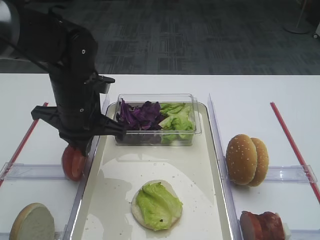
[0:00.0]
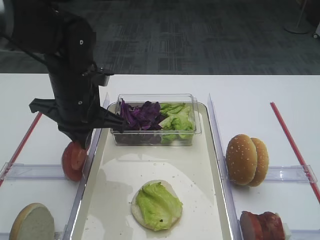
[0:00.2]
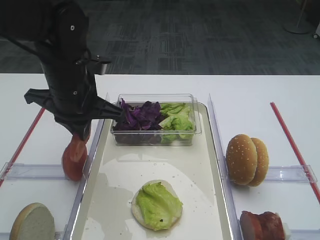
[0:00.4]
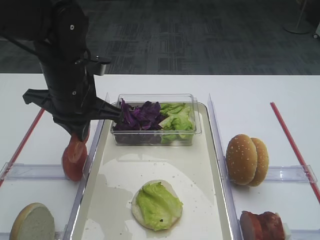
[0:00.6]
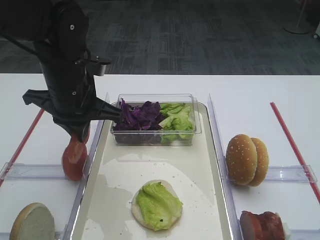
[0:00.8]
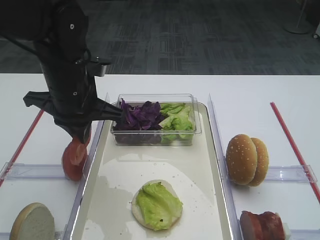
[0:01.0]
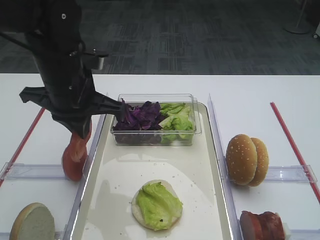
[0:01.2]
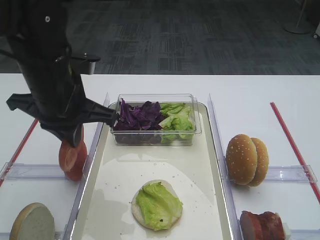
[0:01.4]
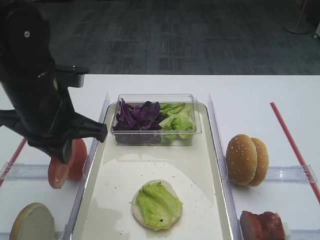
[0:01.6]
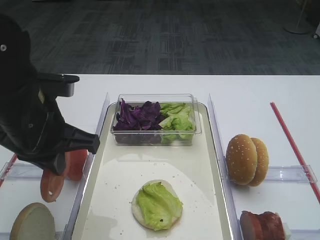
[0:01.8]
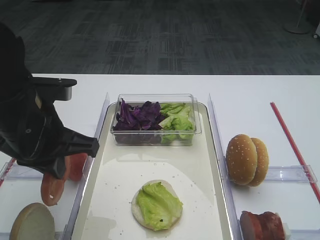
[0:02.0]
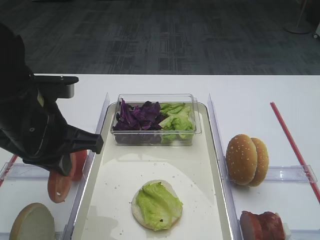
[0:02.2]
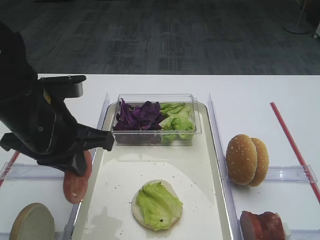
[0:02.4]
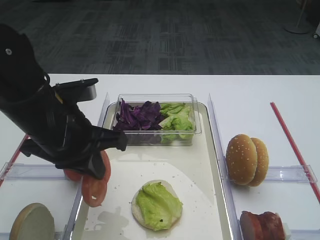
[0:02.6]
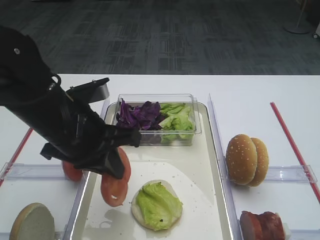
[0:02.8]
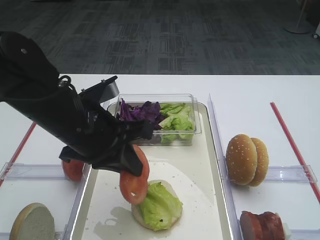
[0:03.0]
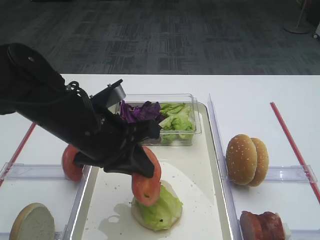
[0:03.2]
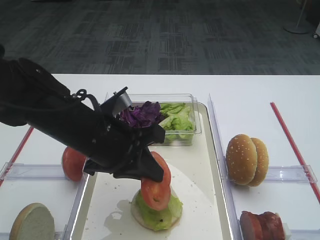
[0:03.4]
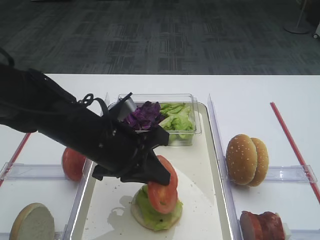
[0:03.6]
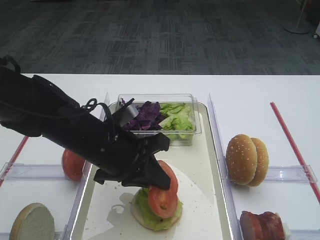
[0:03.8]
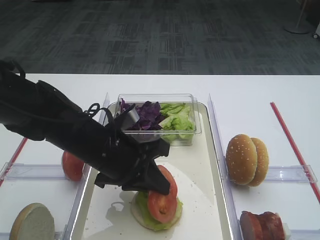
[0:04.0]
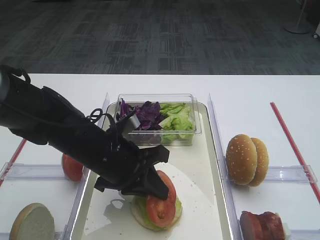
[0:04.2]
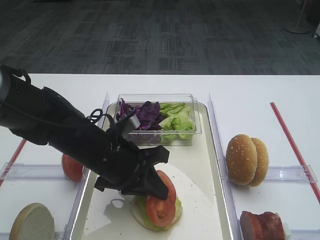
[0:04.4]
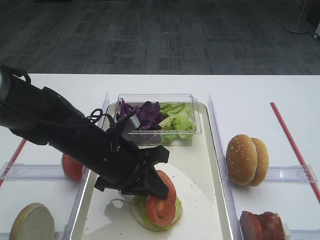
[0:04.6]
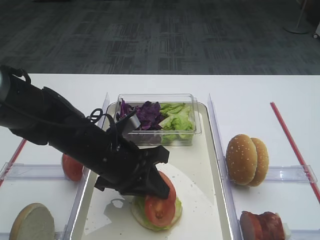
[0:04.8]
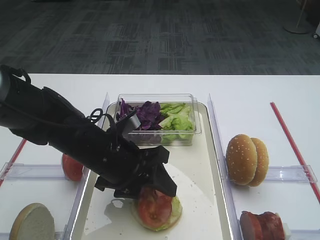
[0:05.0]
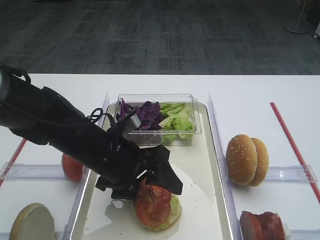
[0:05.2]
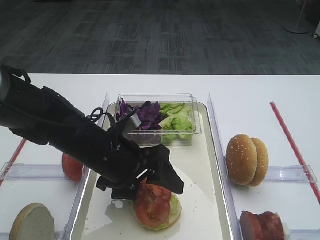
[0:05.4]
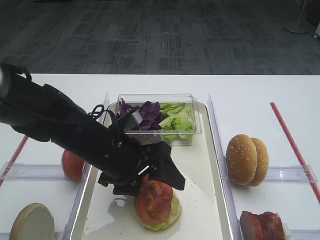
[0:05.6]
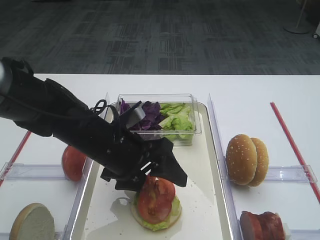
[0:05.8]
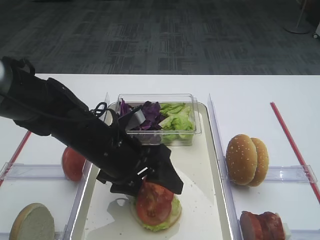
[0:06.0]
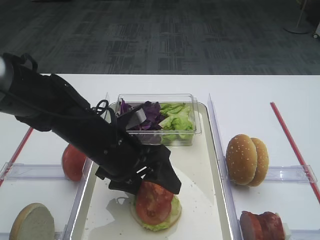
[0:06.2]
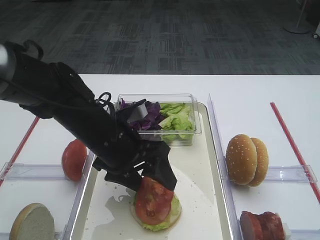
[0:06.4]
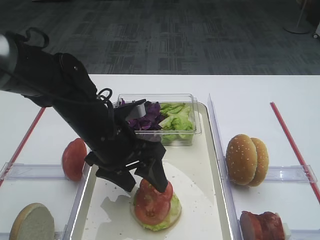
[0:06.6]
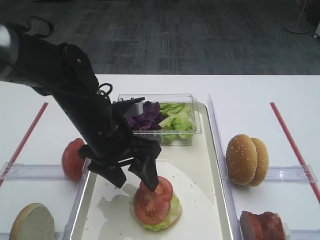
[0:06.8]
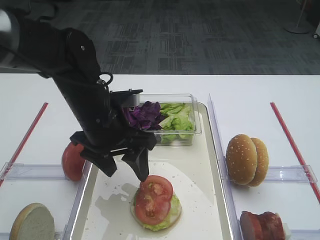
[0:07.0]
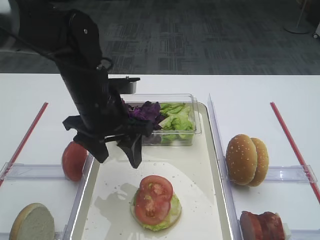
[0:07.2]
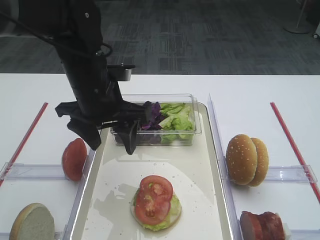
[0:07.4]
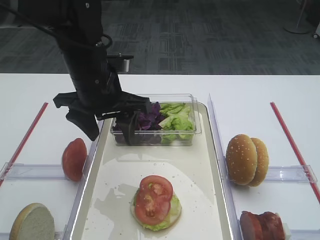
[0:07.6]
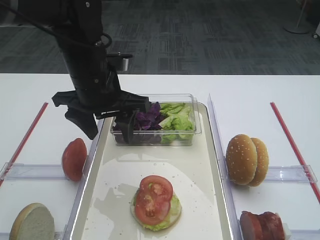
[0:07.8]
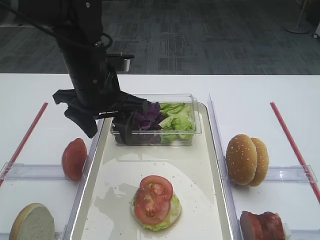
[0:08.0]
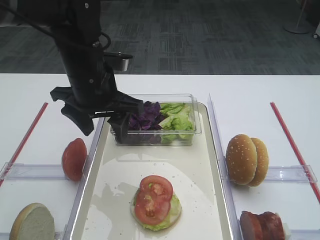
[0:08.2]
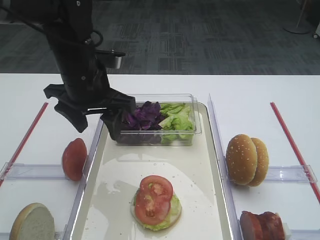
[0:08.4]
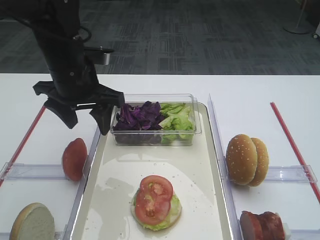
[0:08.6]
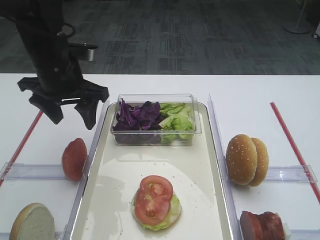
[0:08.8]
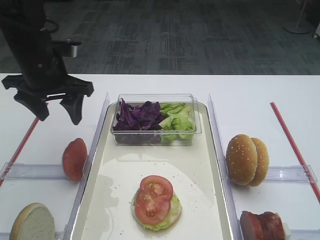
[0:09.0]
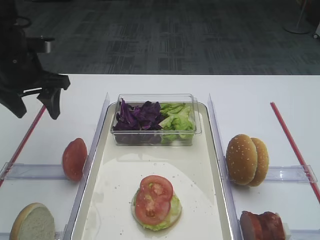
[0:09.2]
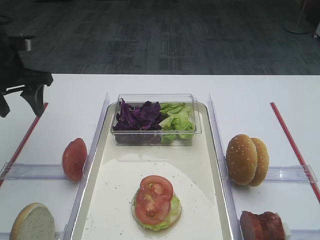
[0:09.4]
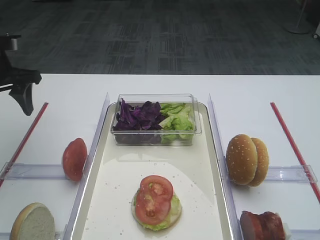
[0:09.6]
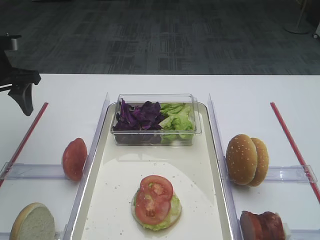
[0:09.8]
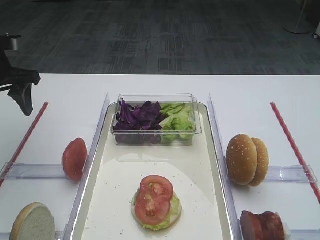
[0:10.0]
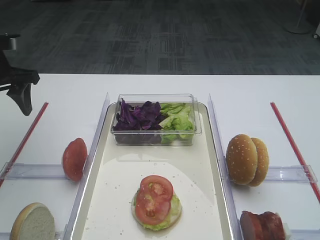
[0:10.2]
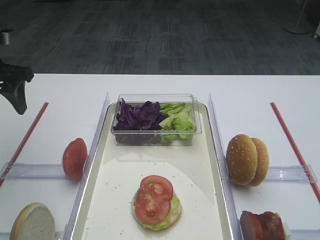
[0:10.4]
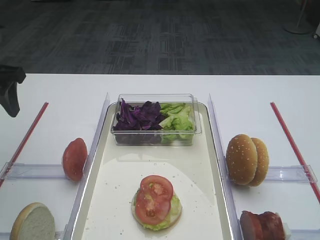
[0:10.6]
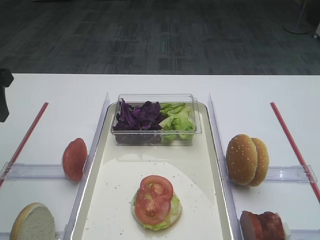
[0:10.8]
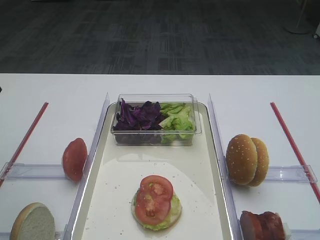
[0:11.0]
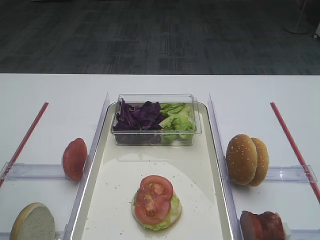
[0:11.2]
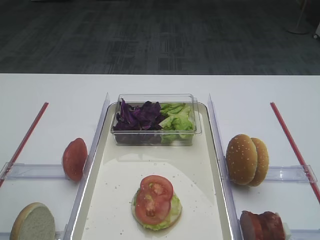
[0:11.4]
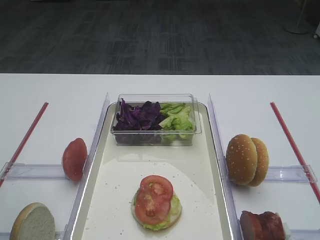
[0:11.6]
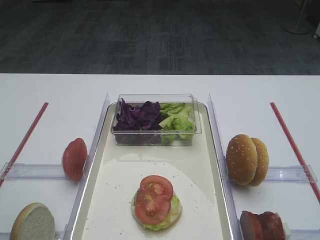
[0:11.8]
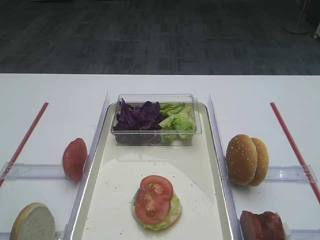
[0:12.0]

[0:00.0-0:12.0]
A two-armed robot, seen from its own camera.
Step, 0:01.4 to 0:07.2: Place the tomato slice on the lettuce leaf with the left gripper.
0:00.0 to 0:01.6: The left gripper moves backward, about 5 cm.
0:01.6 to 0:03.0: The left gripper ends up approximately 5 cm from where it was.
0:03.0 to 0:04.4: The left gripper moves downward, about 5 cm.
0:04.4 to 0:06.0: The left gripper opens its fingers.
0:06.0 to 0:07.6: The left gripper travels upward and forward by approximately 10 cm.
0:07.6 to 0:09.0: The left gripper goes about 10 cm to the left.
0:09.0 to 0:10.4: The left gripper shifts approximately 10 cm to the left.
0:10.4 to 0:12.0: The left gripper moves backward, about 20 cm.

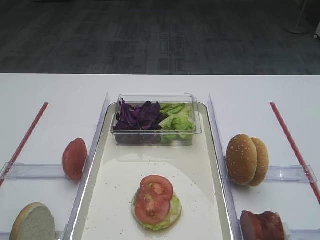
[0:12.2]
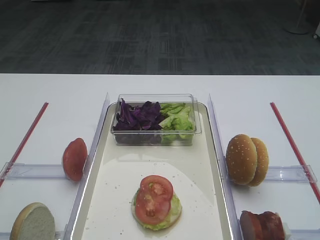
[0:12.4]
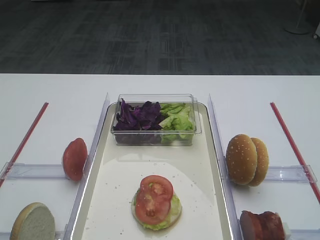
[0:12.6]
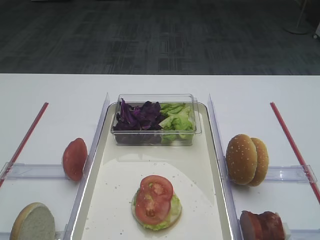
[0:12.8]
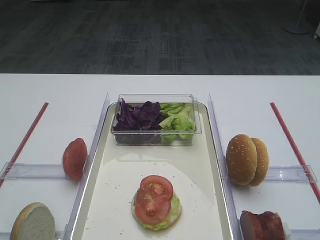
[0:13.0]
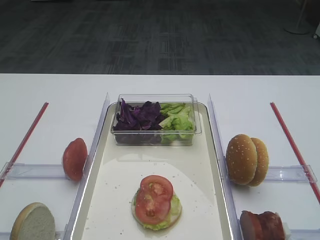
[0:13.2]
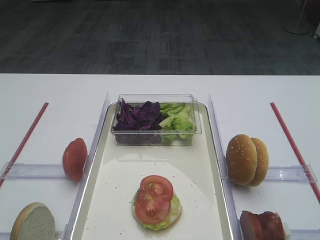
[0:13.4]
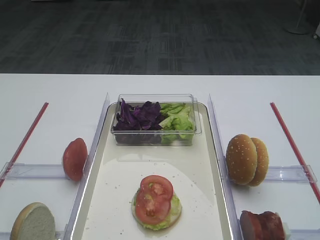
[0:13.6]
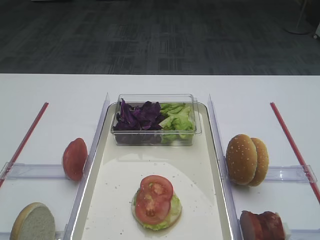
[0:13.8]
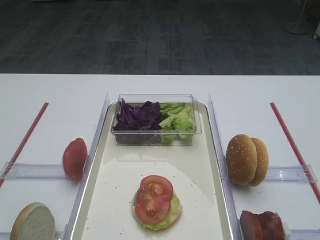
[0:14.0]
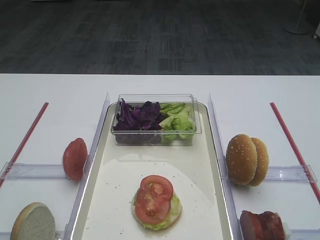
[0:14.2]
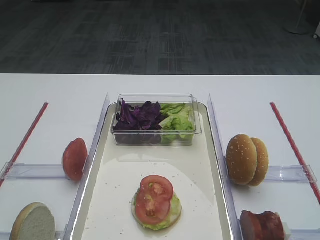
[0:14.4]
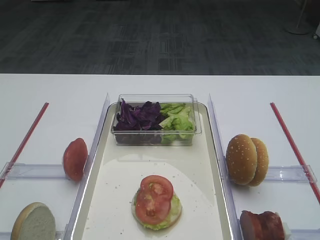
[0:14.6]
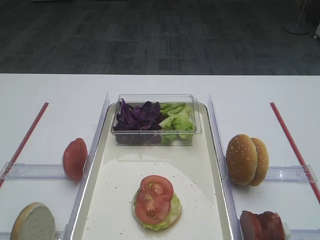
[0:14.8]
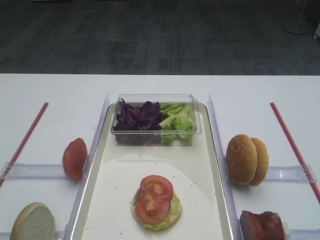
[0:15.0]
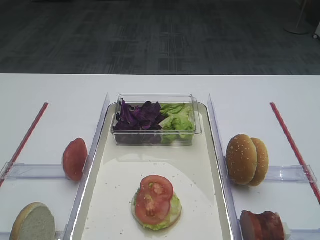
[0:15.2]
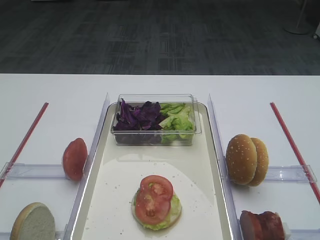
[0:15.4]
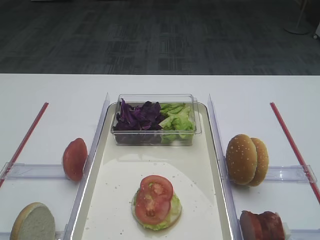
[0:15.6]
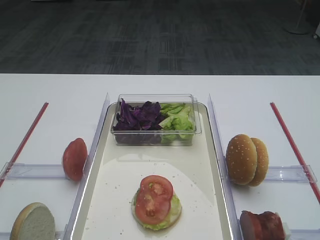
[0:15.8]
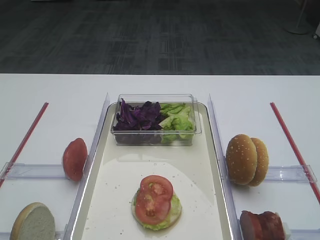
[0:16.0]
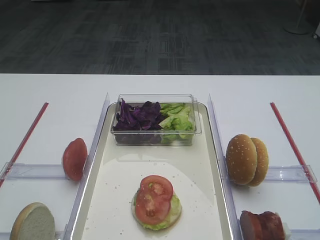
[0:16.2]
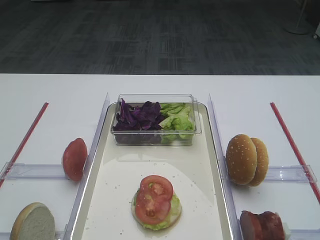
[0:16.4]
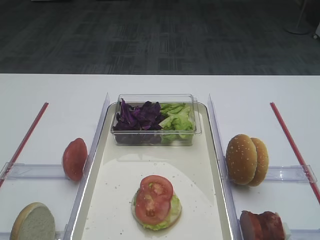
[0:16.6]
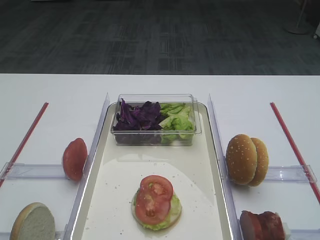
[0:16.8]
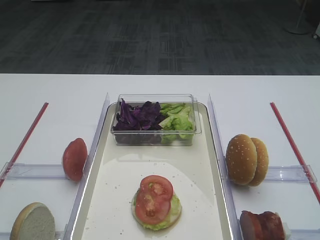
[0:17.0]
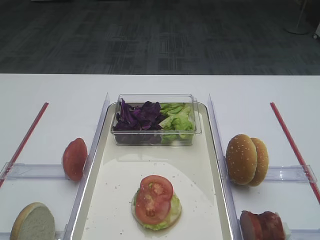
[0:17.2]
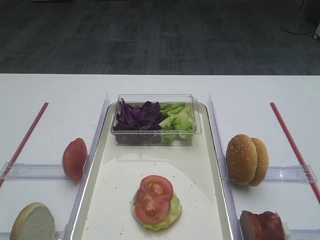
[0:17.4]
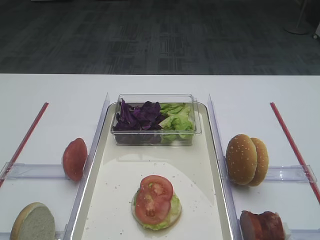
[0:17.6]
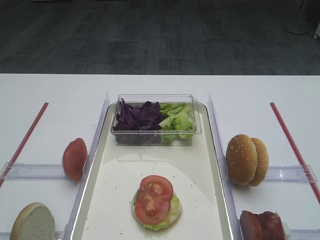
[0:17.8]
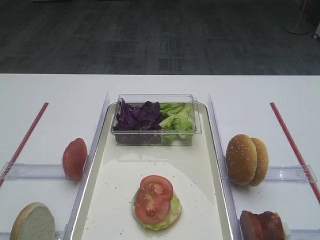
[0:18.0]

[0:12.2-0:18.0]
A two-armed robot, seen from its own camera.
0:15.0 to 0:18.0: Neither gripper changes place.

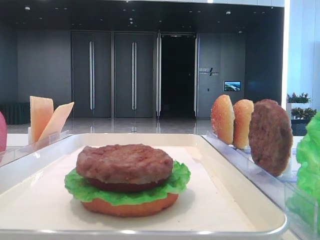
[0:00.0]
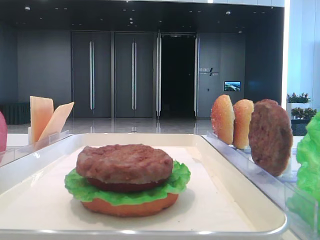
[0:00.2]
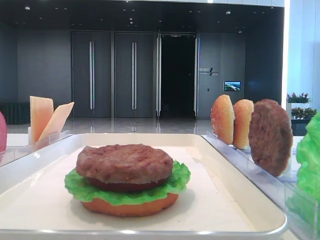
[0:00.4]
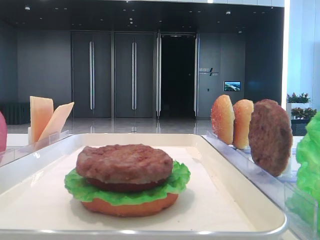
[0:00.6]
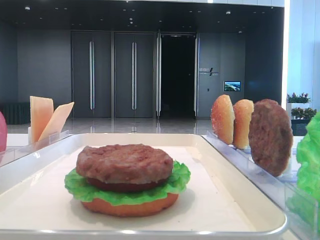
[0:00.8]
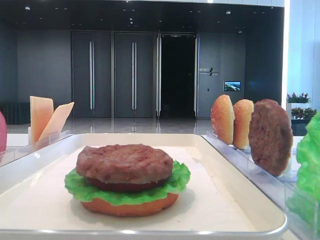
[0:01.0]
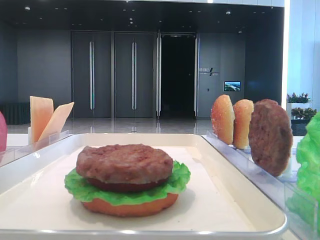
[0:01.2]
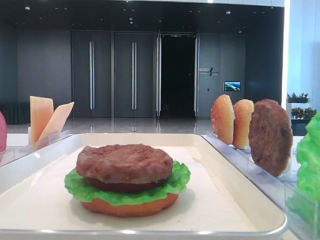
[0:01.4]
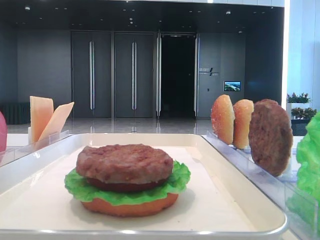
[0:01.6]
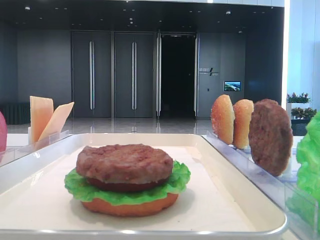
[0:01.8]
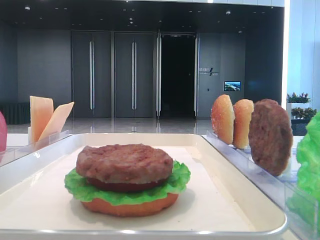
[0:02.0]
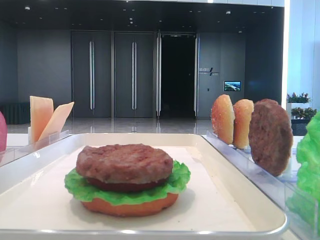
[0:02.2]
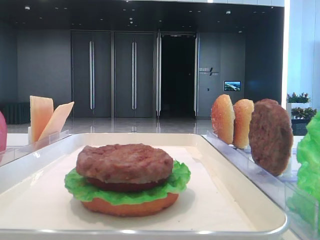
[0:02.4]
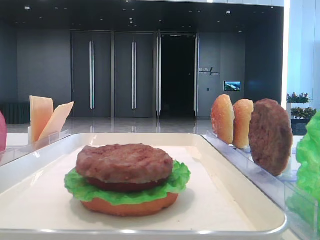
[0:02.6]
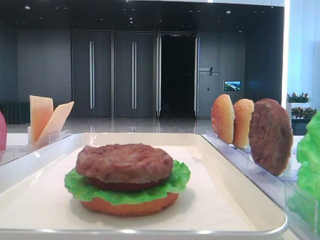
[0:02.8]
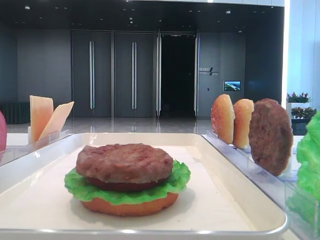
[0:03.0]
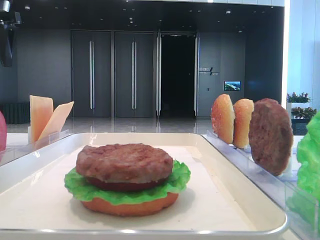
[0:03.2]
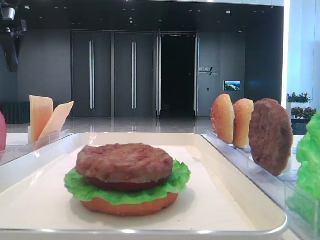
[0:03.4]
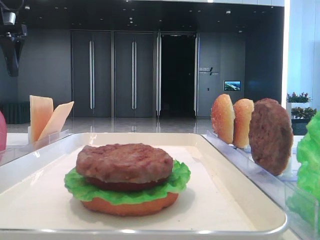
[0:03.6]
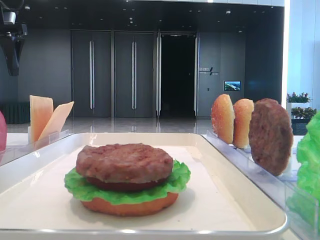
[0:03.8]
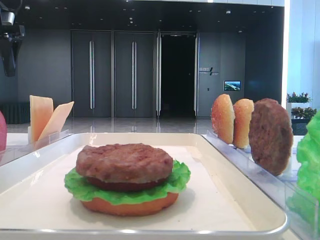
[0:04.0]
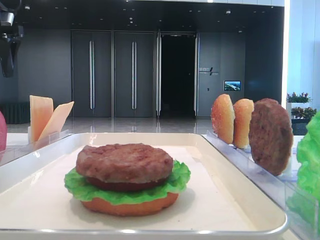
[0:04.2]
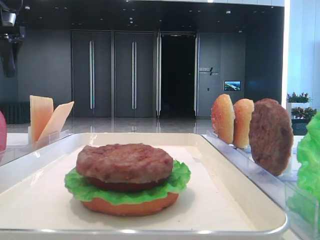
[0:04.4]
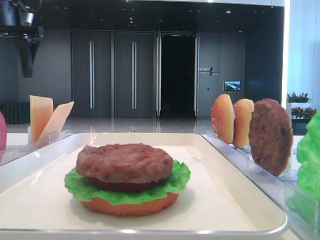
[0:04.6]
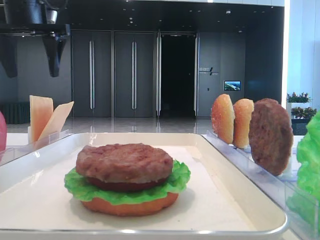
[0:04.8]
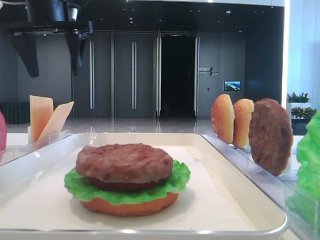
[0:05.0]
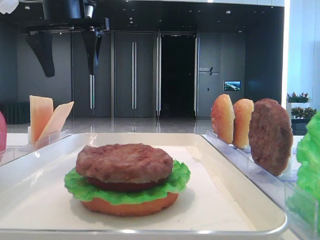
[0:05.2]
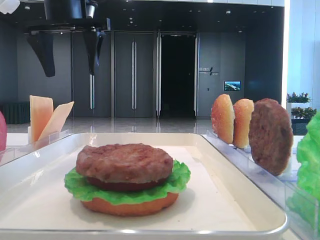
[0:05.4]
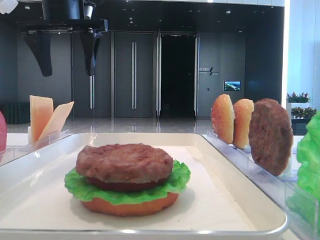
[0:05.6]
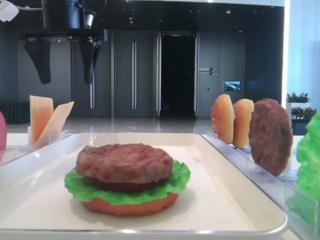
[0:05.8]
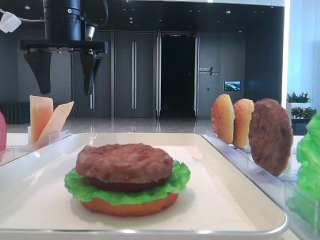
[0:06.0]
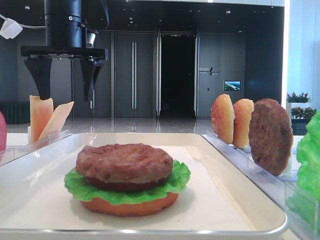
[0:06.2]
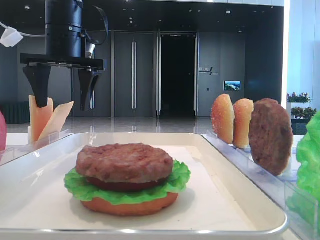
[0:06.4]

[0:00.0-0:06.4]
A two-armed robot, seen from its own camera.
0:01.6 to 0:03.2: The left gripper is displaced forward by about 40 cm.
0:03.2 to 0:04.8: The left gripper travels to the right by about 10 cm.
0:04.8 to 0:06.4: The left gripper heads to the right and downward, covering about 10 cm.
